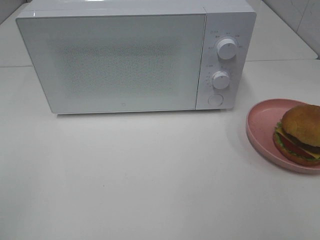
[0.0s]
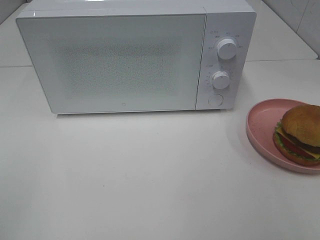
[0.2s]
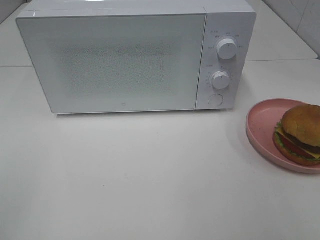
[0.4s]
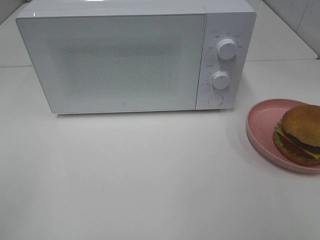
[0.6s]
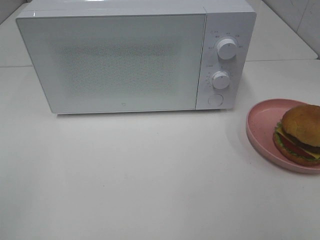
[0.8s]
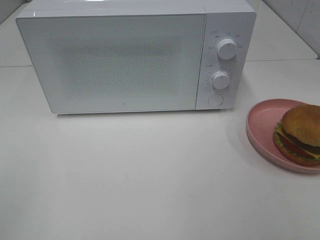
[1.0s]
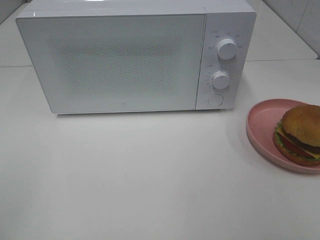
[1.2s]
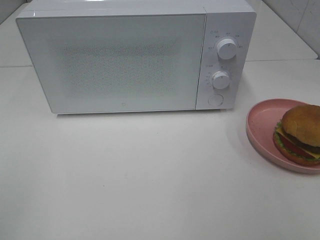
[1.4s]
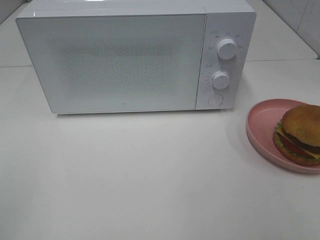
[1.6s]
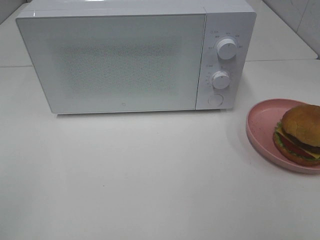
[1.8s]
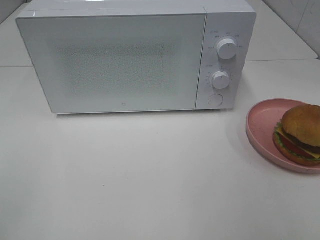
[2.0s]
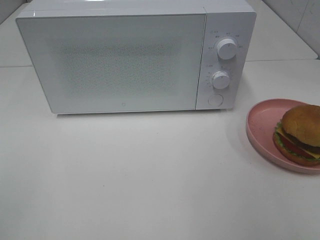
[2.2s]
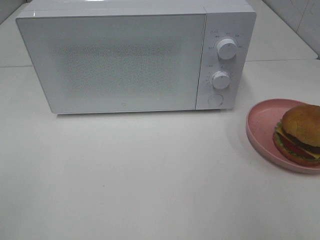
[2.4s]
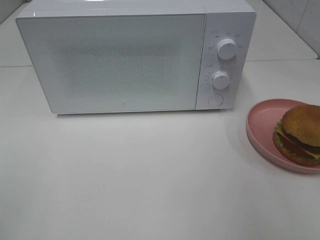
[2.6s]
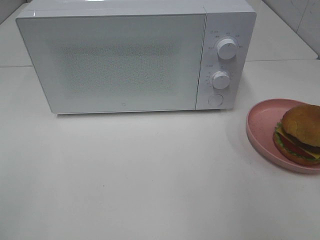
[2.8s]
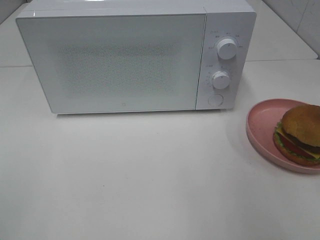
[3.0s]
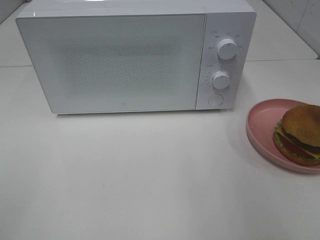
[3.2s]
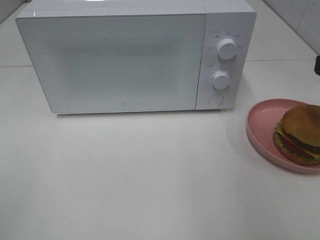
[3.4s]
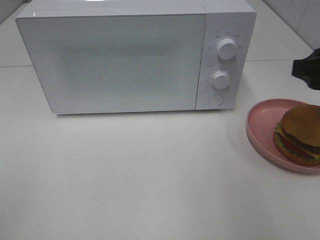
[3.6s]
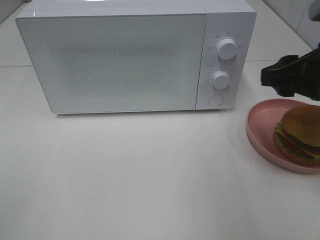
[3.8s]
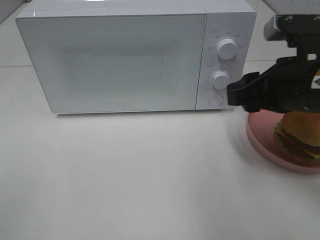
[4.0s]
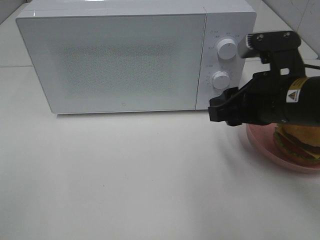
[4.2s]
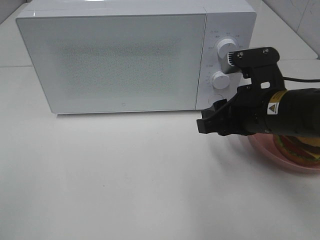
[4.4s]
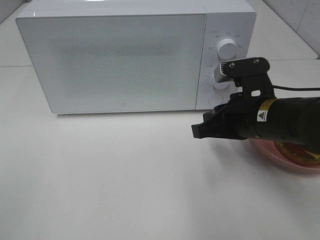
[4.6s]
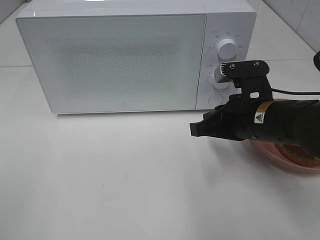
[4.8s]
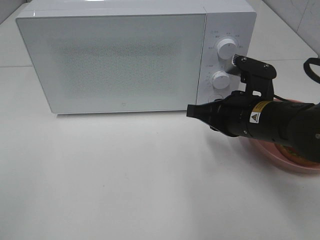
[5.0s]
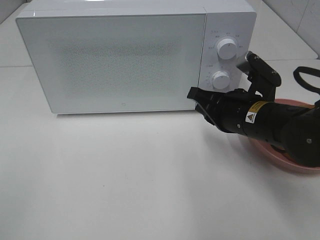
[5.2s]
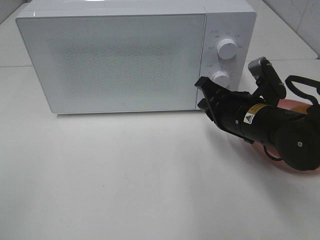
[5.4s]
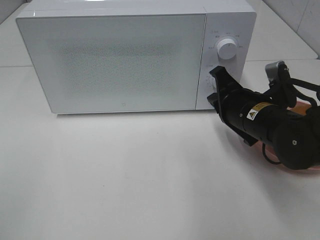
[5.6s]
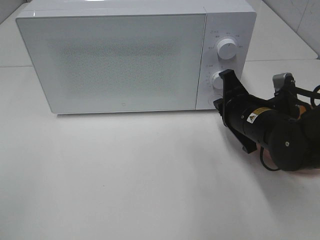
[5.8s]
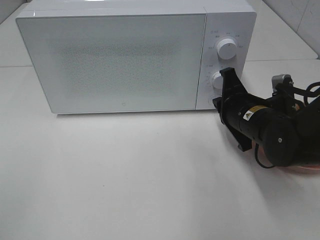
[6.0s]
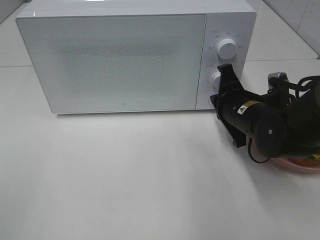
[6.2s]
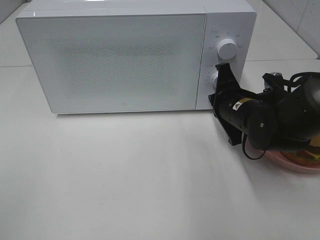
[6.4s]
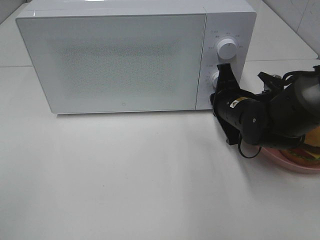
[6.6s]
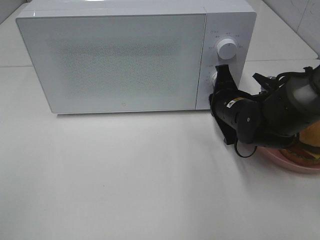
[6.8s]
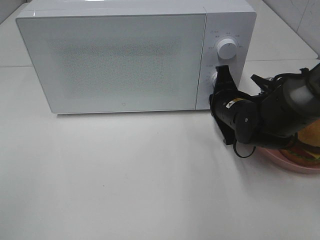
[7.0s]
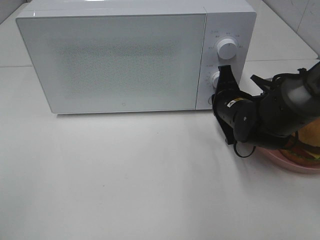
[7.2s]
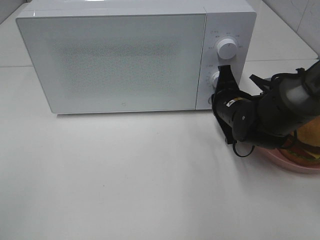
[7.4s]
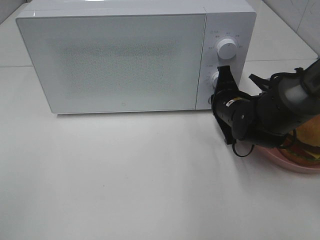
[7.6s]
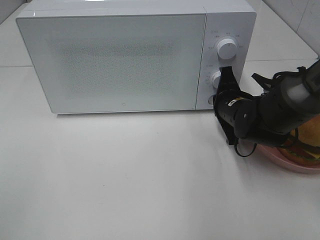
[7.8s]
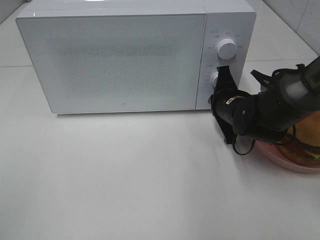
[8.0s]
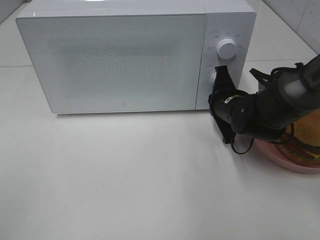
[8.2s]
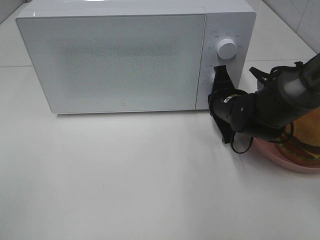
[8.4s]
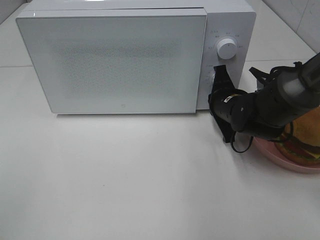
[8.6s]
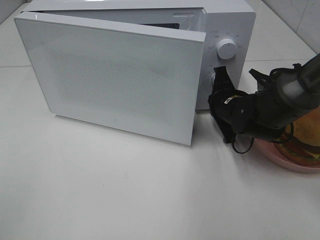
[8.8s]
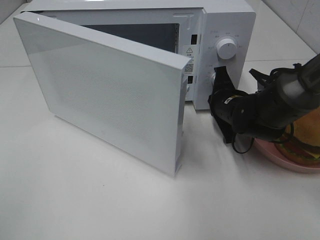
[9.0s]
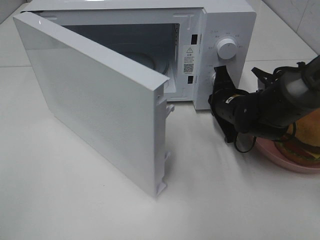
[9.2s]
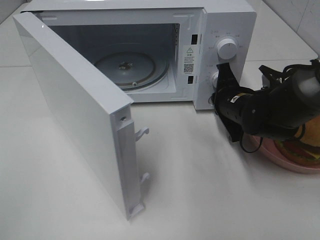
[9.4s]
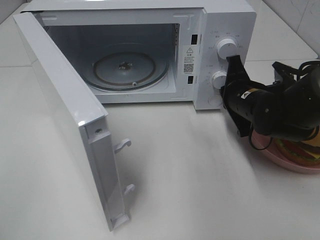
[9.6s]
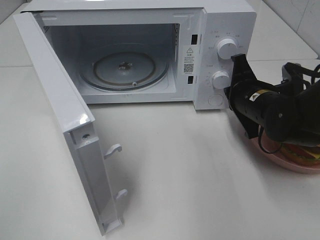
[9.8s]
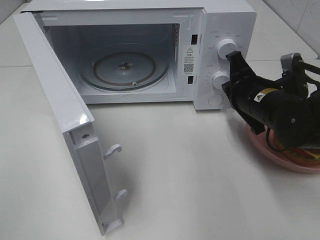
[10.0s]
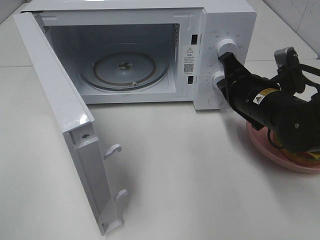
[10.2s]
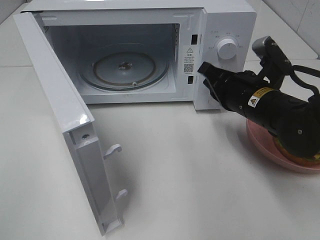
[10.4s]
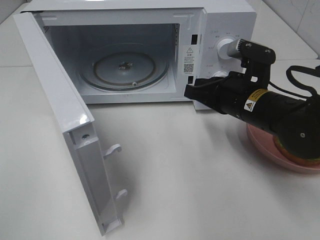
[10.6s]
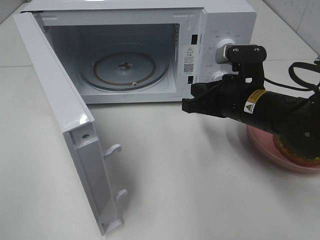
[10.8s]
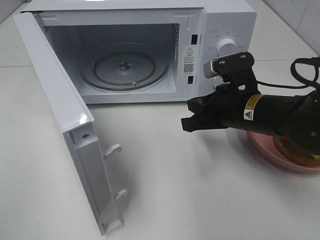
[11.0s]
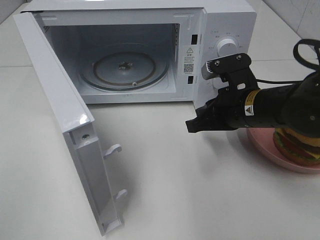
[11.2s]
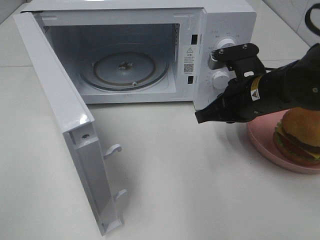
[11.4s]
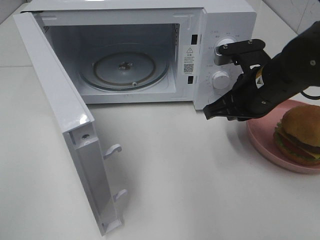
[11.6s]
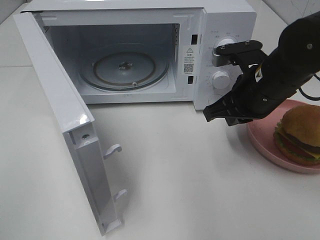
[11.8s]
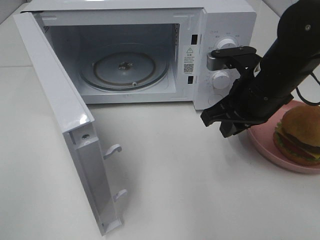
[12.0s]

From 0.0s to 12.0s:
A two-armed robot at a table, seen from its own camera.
Task of the whole recording: Heat the burger.
Step, from 0.0s to 9.8s: Right hand: press the switch.
From 0.0s to 1.6s: Both grippers stay put.
From 3.0s to 4.4s: The right gripper moves to the left, downward and forward, some 20 cm.
From 4.4s to 6.0s: The right gripper moves downward, about 5 cm, and closes its fingers.
From 6.0s to 7.6s: The right gripper heads forward, covering some 5 cm.
From 7.6s to 9.0s: The grippers make only small movements.
From 9.0s to 10.4s: The right gripper is displaced backward and upward by some 10 cm.

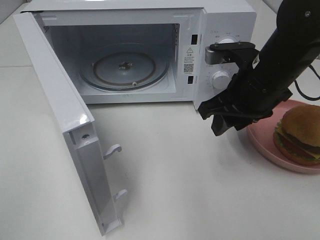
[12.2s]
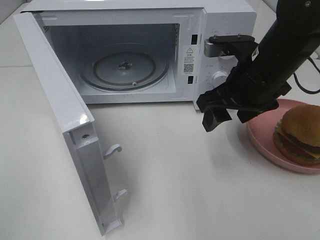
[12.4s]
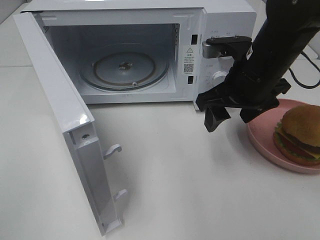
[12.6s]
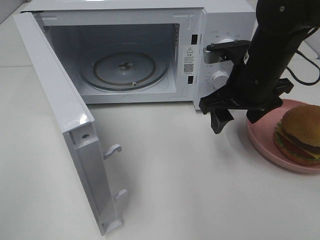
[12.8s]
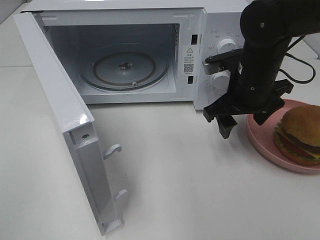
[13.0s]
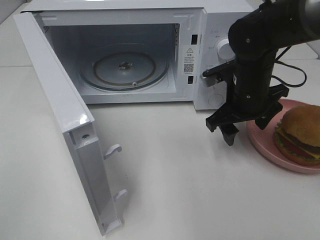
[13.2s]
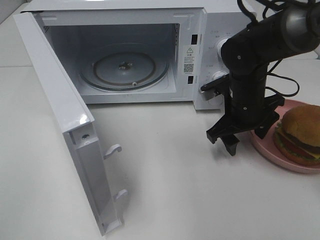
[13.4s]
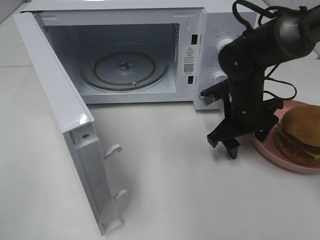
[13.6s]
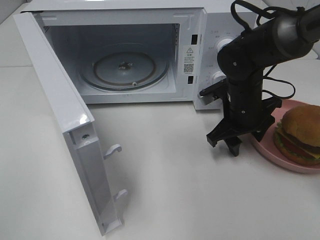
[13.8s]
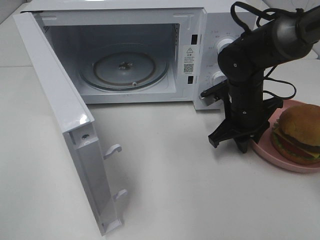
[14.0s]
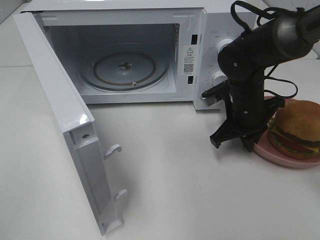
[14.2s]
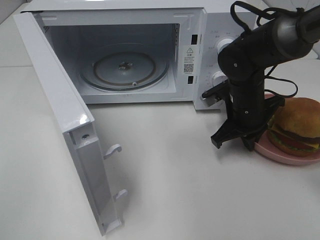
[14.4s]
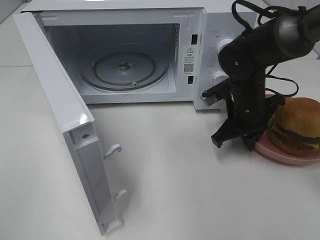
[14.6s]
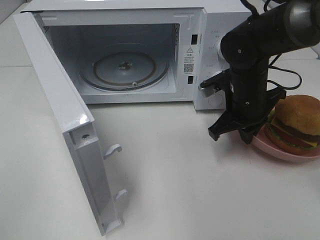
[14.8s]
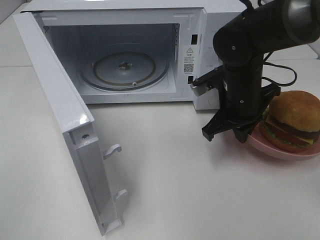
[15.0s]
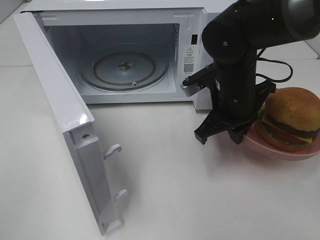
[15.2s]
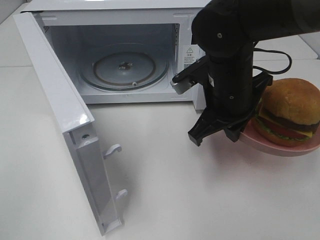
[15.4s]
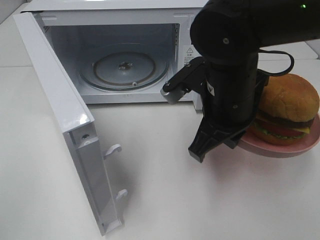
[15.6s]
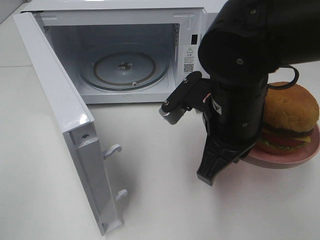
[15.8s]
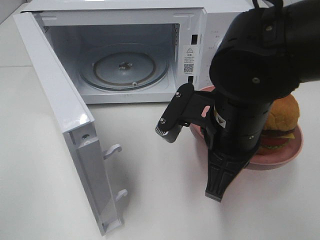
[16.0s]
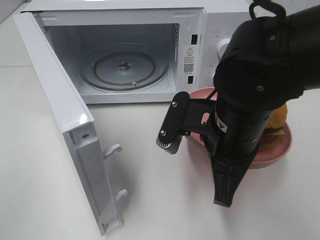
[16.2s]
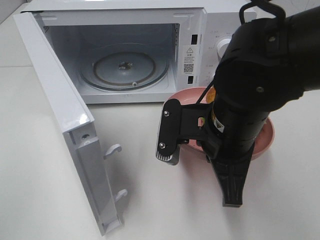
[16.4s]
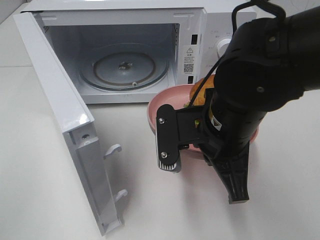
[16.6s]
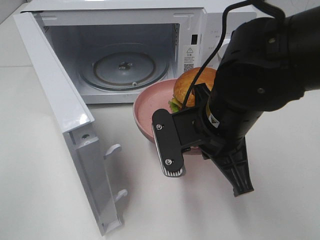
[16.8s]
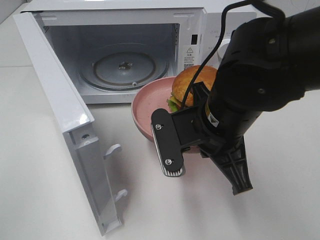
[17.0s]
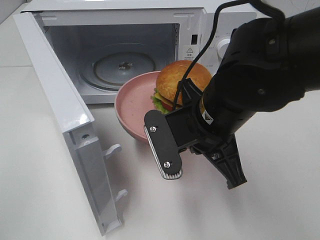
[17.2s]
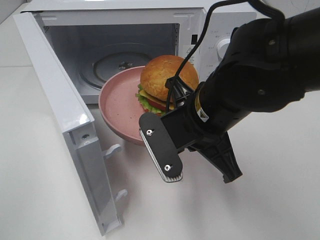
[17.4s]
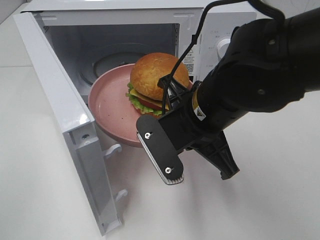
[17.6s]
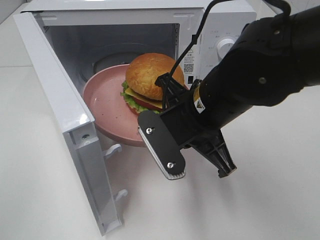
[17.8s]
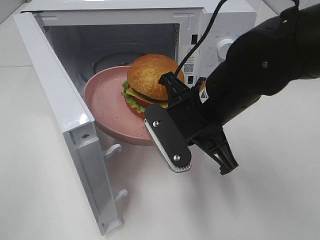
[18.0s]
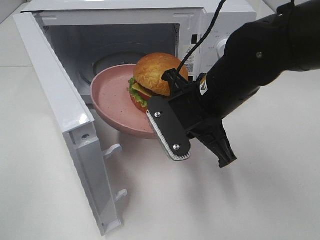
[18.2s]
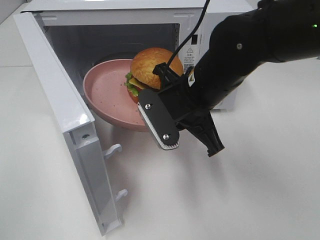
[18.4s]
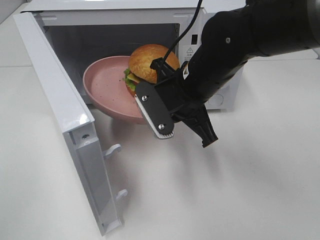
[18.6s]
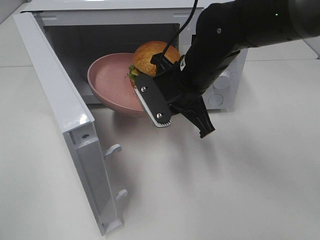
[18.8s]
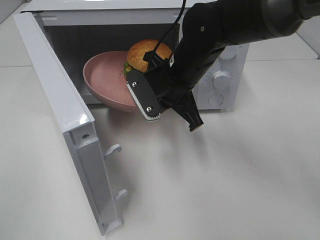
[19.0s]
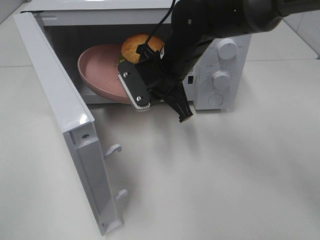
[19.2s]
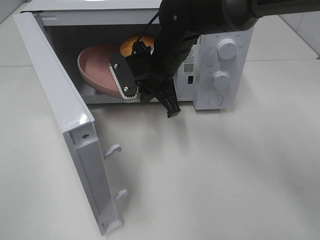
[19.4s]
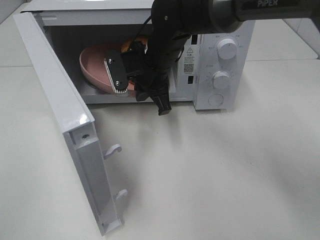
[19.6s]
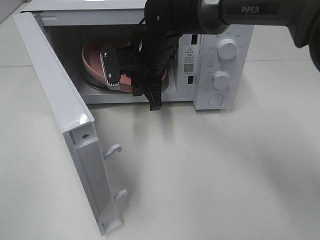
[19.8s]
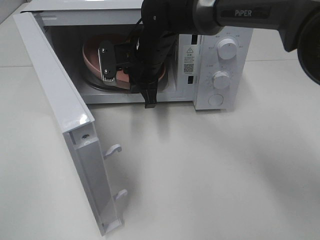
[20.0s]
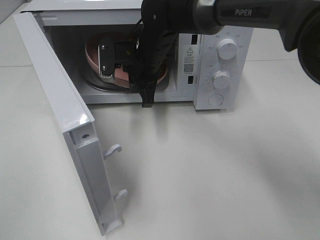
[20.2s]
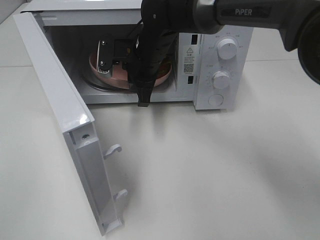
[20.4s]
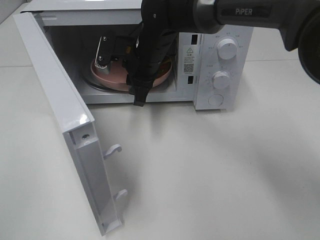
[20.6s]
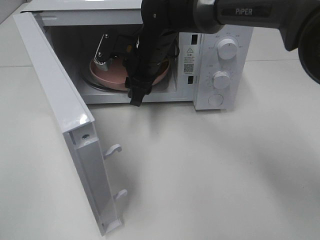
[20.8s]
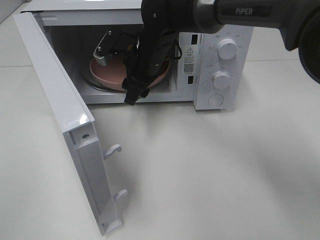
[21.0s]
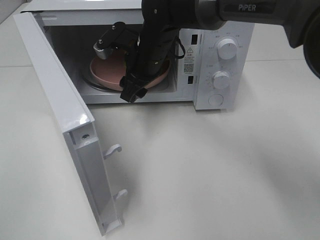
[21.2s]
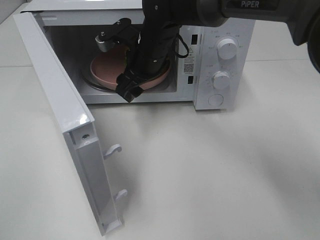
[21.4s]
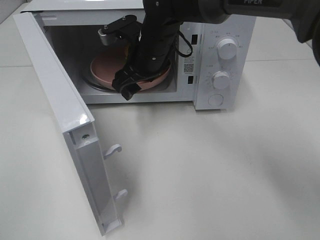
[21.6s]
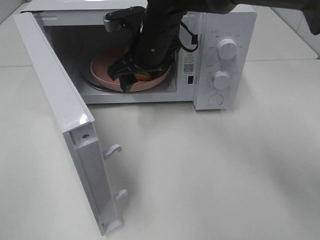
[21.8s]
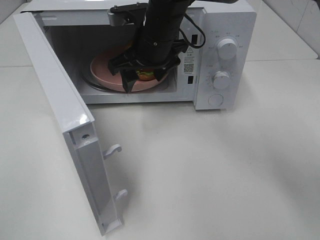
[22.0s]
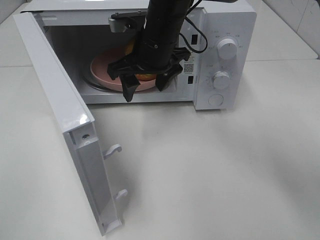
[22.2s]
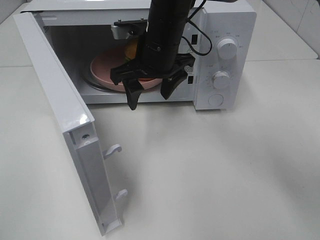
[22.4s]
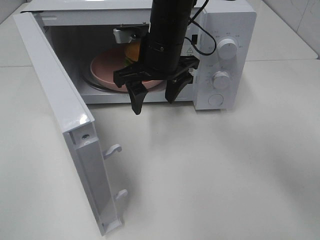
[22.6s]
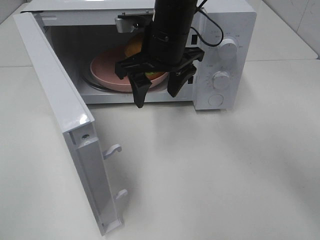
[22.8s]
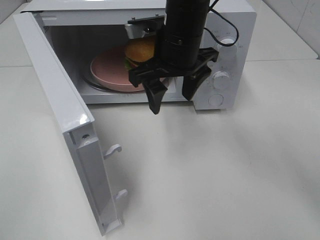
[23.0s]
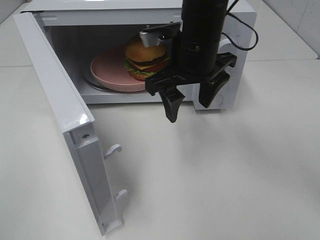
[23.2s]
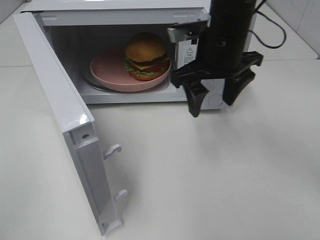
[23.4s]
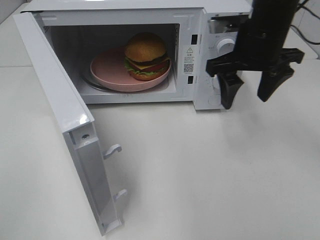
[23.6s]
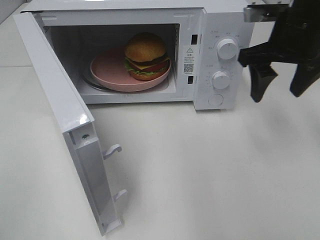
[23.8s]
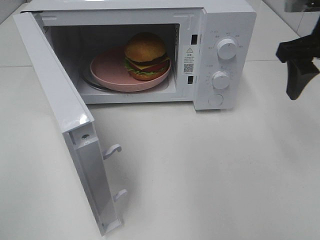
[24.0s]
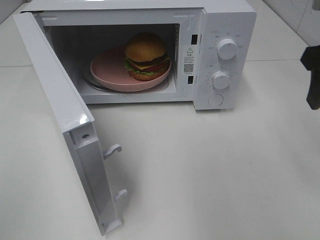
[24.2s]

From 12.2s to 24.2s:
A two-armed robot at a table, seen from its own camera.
Task of the whole recording: Heat the burger.
Step, from 12.2s to 14.2s: Right hand: grab the plate with the hamburger.
Step, from 14.4s to 20.6s: Right hand: place the plate in the microwave.
From 12.2s to 13.8s: The right gripper goes approximately 10 cm downward and forward.
From 13.8s to 15.2s: The right gripper goes about 5 cm upward, and closes.
From 15.2s to 16.6s: The right gripper heads backward, covering some 10 cm.
From 18.2s to 19.8s: The right gripper is displaced forward and to the left by approximately 15 cm.
From 19.8s to 21.2s: The right gripper opens up.
From 21.2s to 22.6s: The right gripper changes place by about 5 cm.
From 22.6s to 24.2s: The right gripper is displaced to the right and backward by roughly 25 cm.
